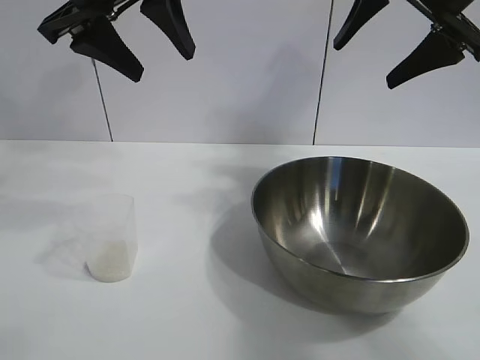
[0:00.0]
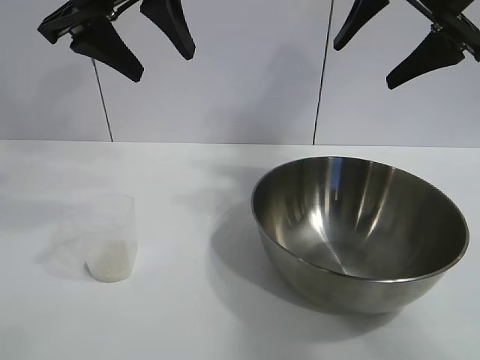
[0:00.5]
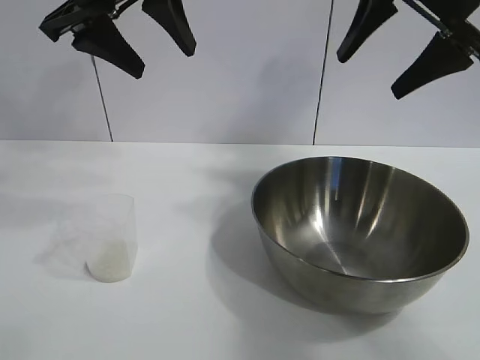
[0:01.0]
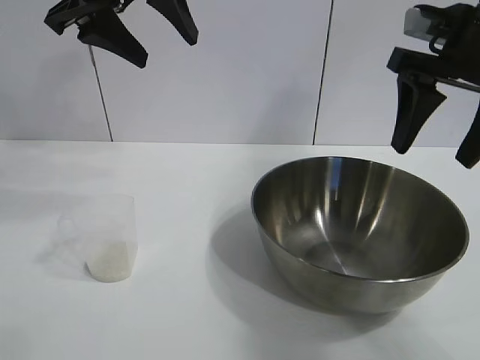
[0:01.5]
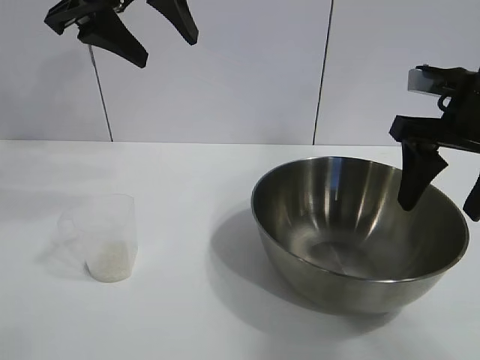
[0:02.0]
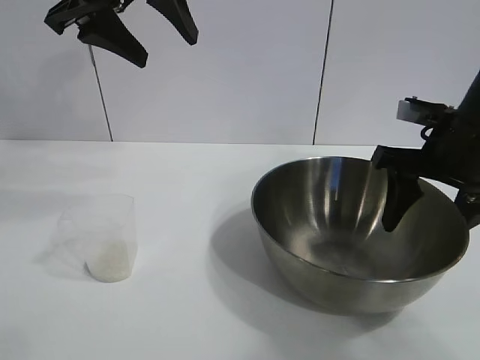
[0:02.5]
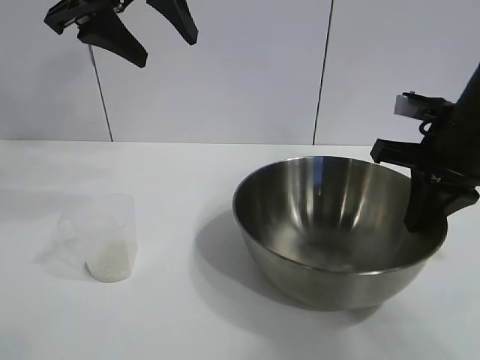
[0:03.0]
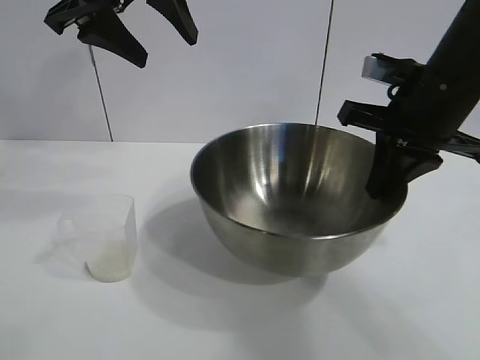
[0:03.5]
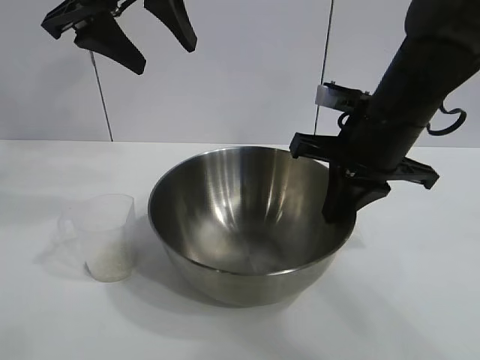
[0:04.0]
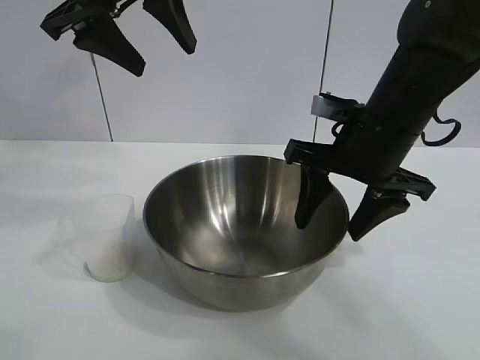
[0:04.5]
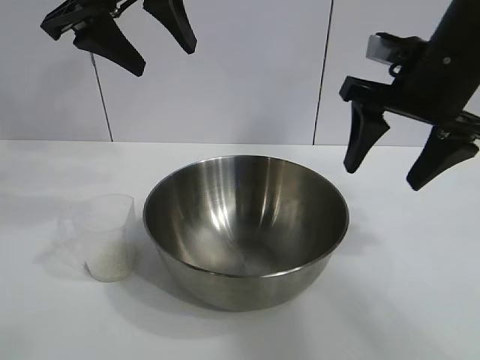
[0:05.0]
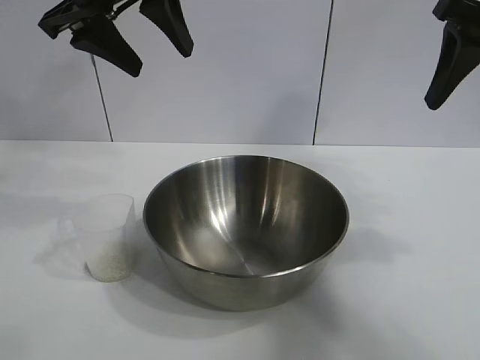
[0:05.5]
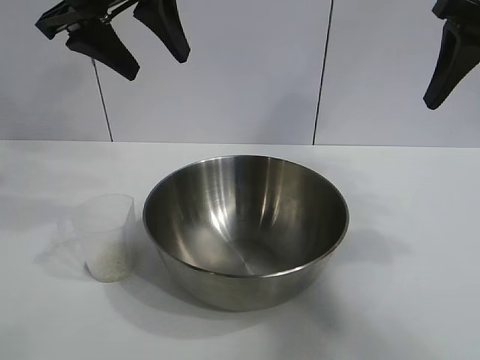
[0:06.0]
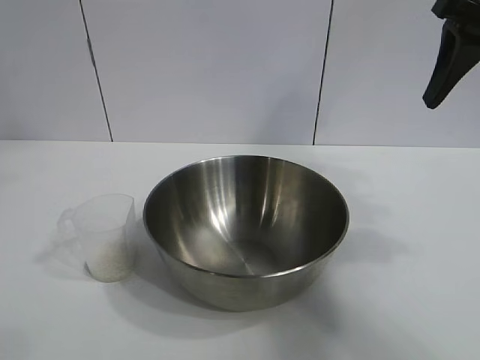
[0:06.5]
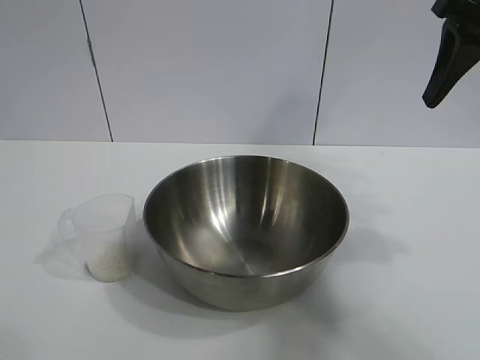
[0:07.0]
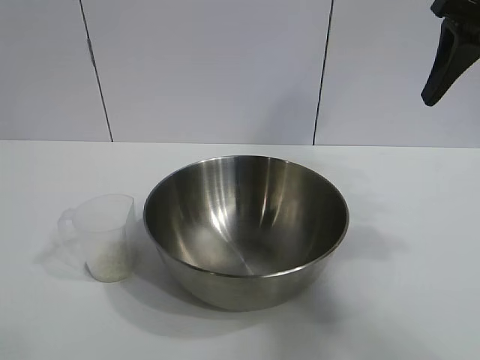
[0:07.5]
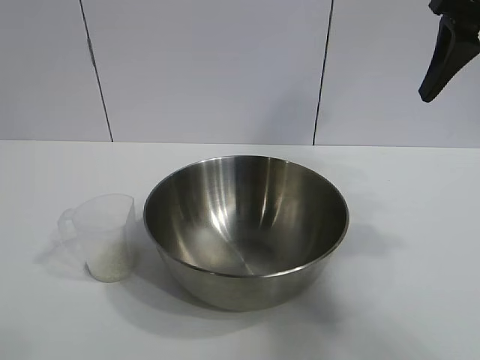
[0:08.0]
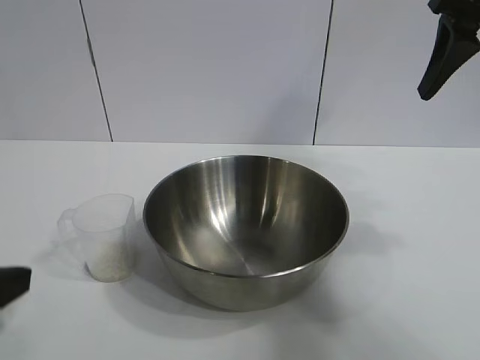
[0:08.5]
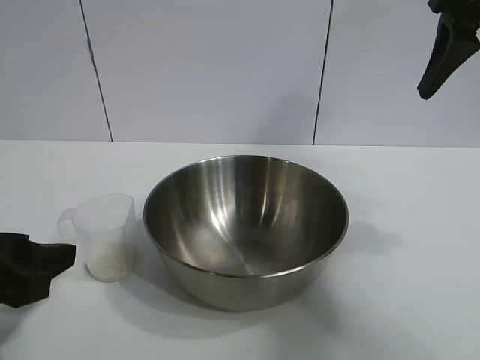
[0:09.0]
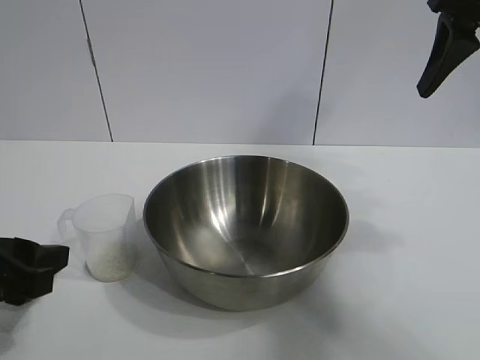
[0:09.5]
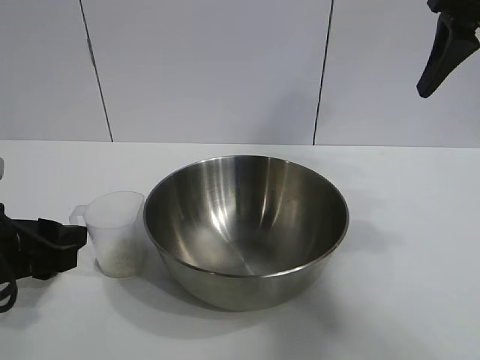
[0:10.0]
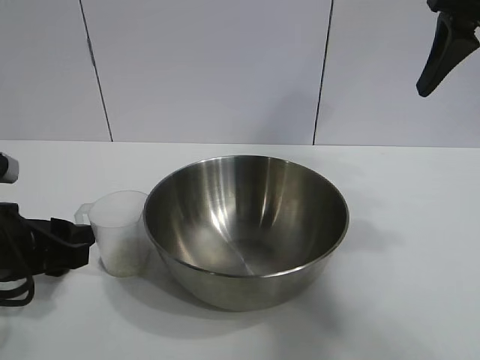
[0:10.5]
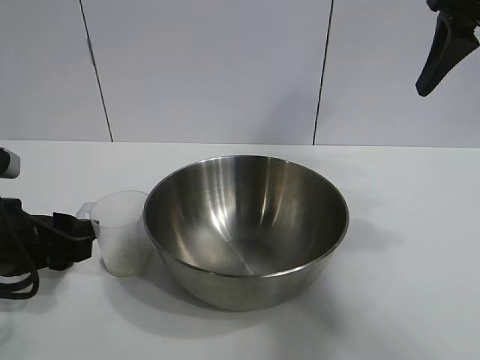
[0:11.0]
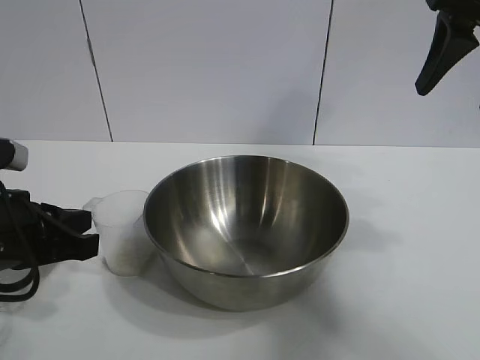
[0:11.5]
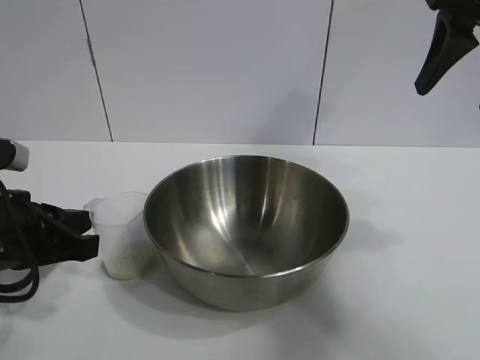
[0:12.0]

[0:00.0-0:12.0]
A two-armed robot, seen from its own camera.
Task of the whole recording: the right gripper grasp the rice container and place it in the center of the table, the left gripper grasp the rice scoop and pour the rice into the rice container.
Step, 0:01.0 to 0:04.5: Move the bowl in the center of view with right gripper.
Step, 0:05.0 to 0:11.0: Grasp the cup with rice in it with left gripper.

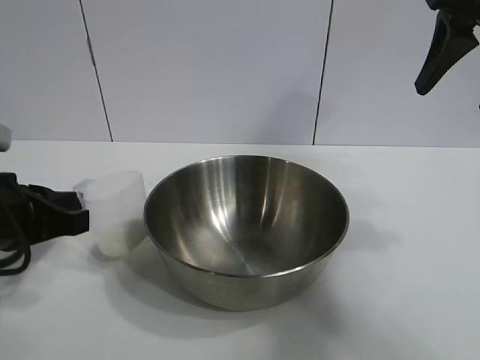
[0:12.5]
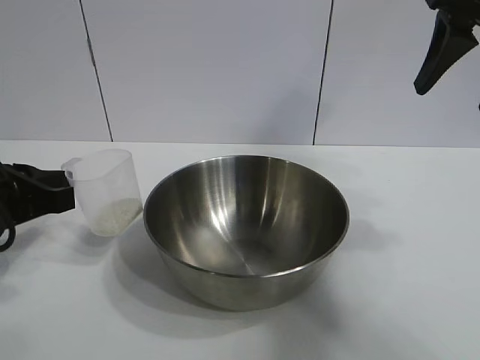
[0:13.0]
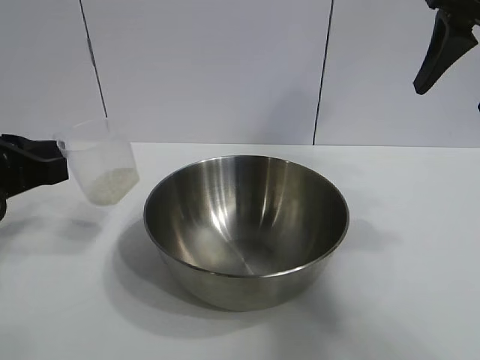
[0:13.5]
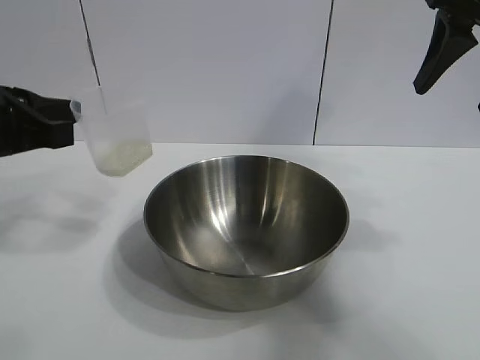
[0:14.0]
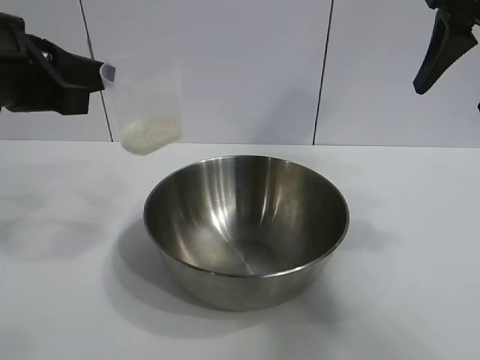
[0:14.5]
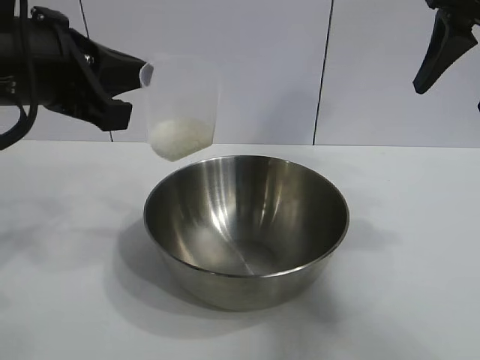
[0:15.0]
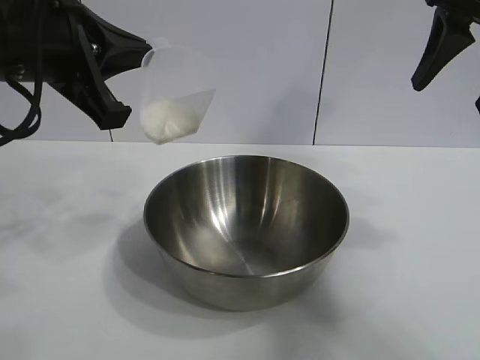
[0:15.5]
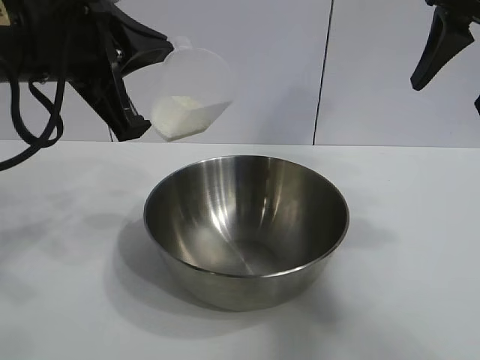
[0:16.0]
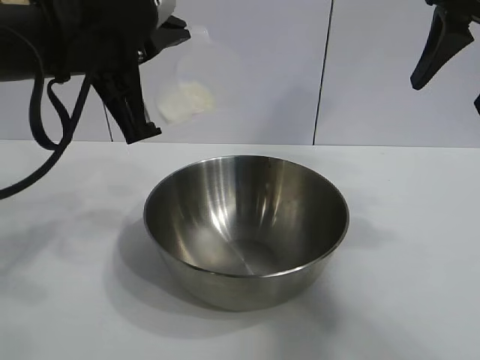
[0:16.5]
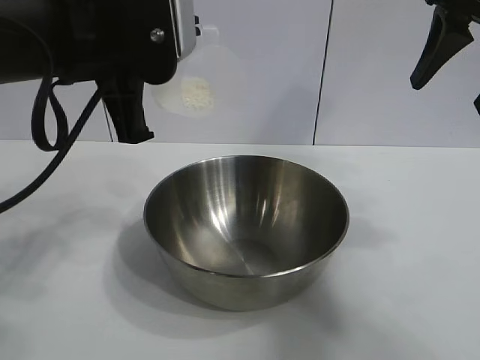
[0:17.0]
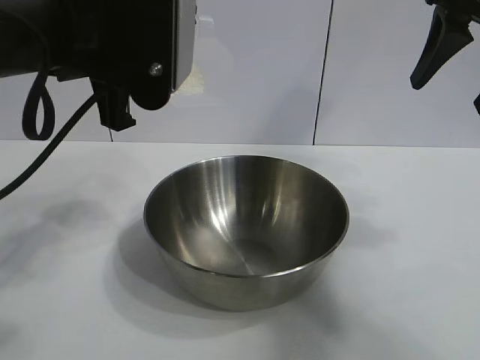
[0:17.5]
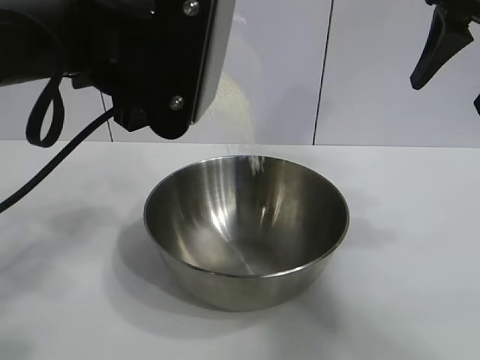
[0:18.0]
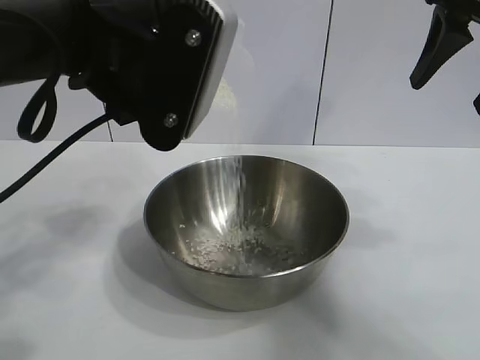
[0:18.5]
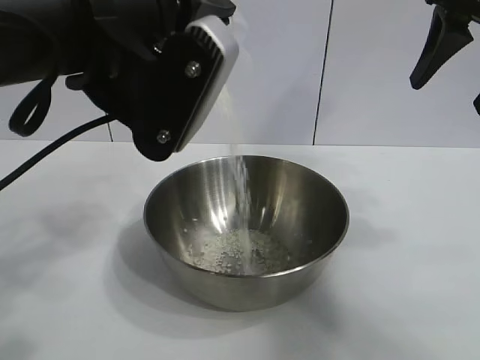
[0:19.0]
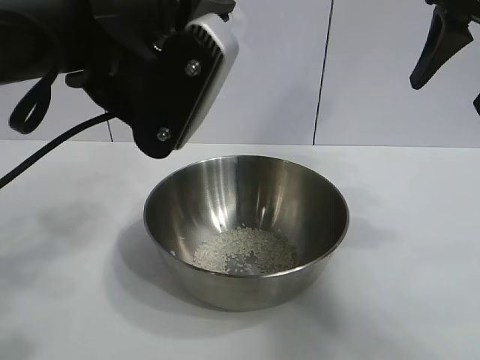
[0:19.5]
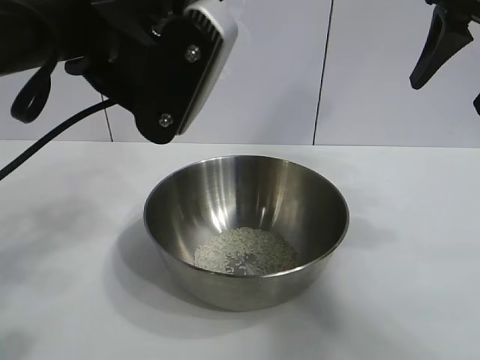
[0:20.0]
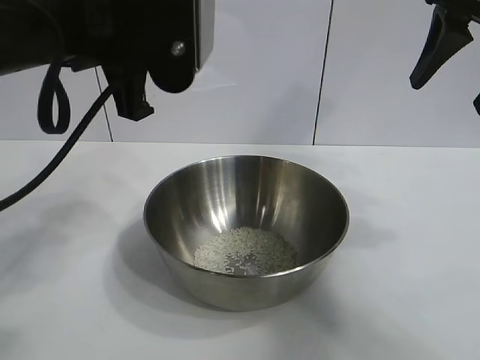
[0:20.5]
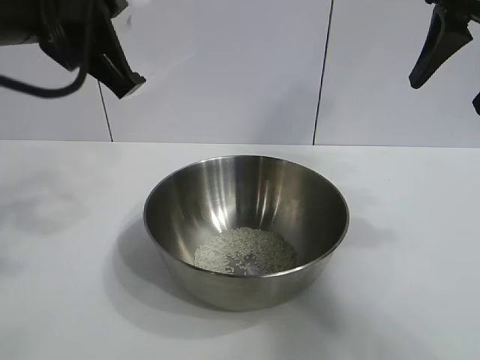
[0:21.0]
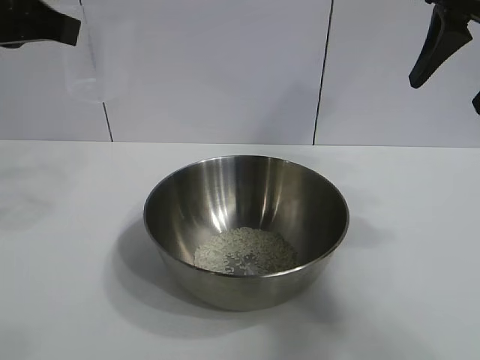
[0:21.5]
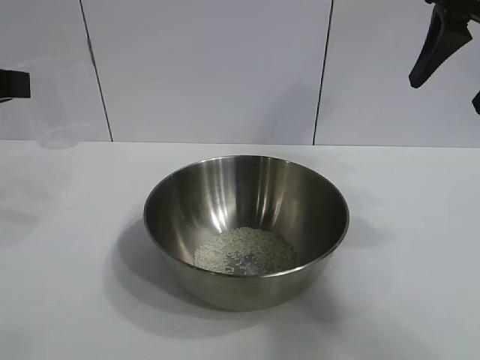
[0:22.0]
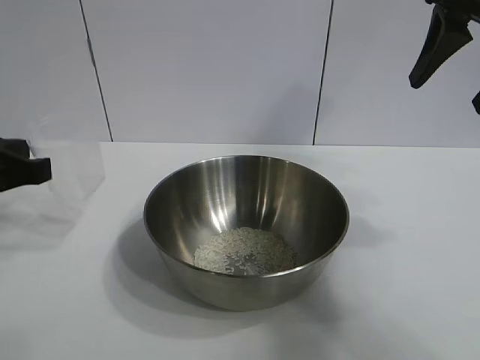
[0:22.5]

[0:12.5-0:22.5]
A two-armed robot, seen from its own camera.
Task of the whole recording: the right gripper grasp the rice container and place it in the center of the table, the left gripper grasp the rice scoop and pour the rice into the rice container.
Step, 0:12.5 to 0:19.5: Pour the rice from the cup into the bowl with the left gripper.
